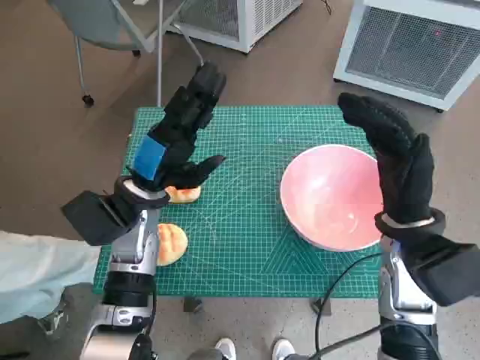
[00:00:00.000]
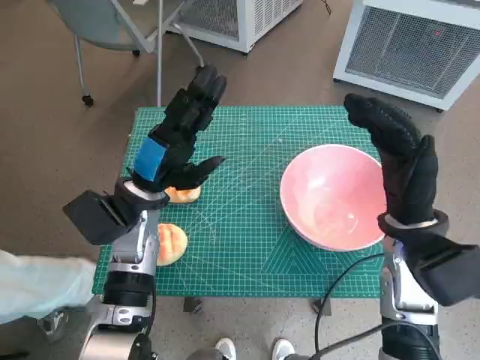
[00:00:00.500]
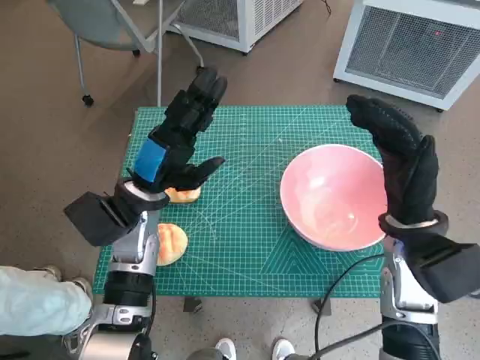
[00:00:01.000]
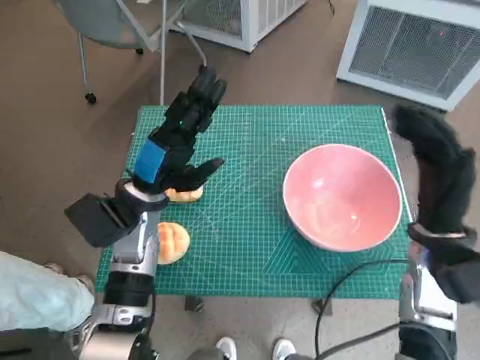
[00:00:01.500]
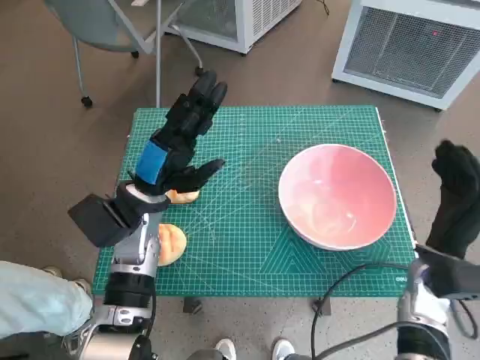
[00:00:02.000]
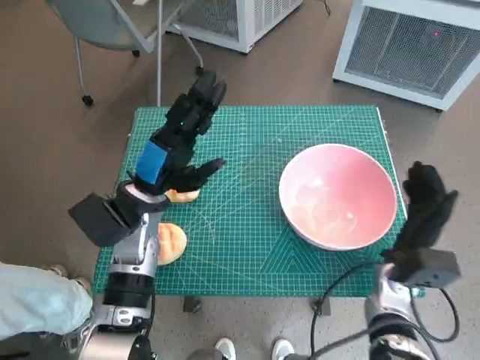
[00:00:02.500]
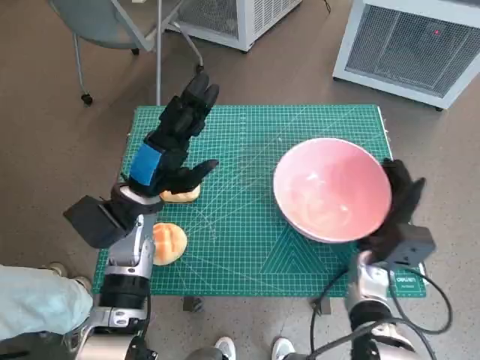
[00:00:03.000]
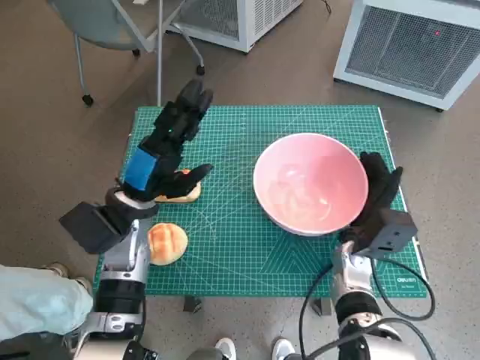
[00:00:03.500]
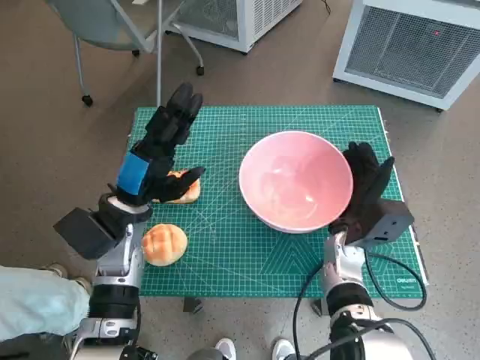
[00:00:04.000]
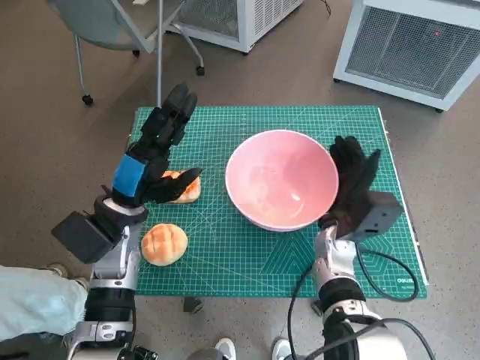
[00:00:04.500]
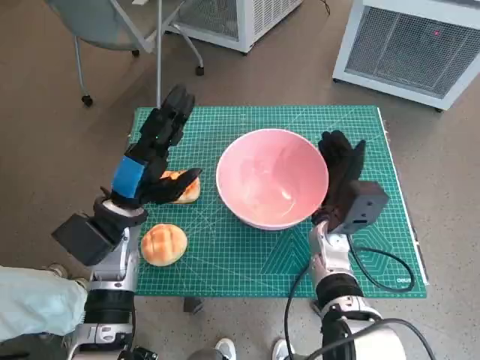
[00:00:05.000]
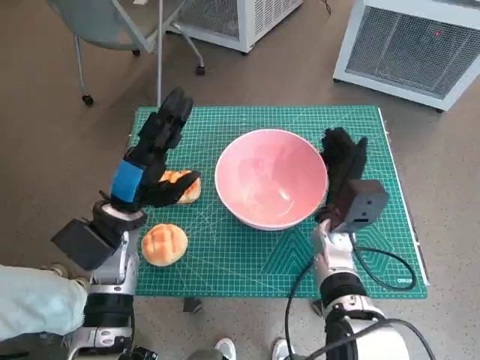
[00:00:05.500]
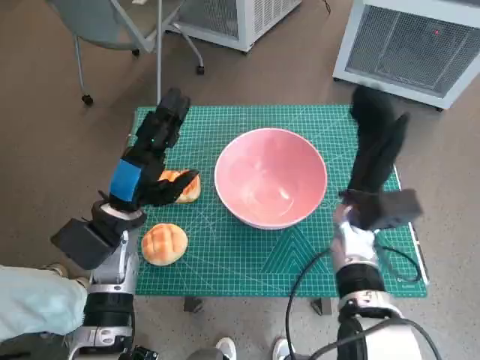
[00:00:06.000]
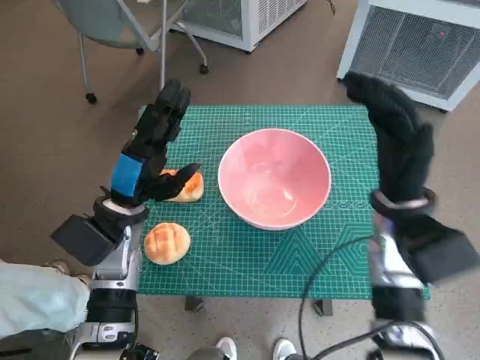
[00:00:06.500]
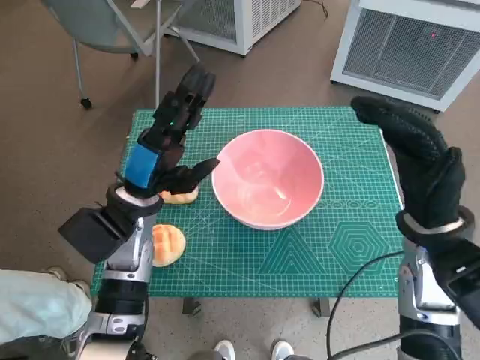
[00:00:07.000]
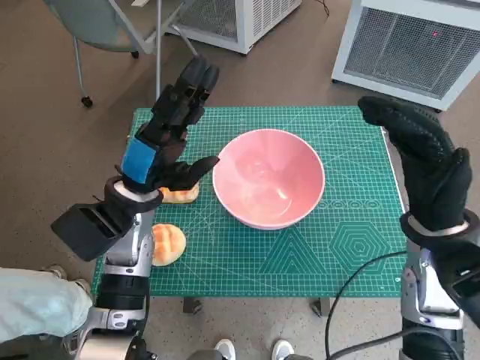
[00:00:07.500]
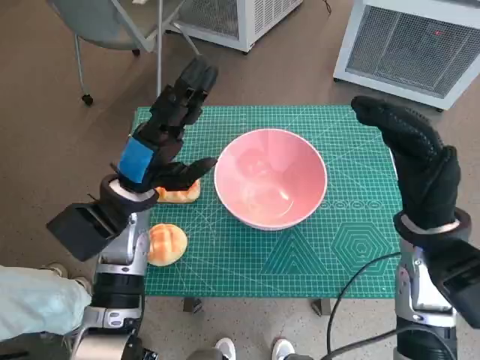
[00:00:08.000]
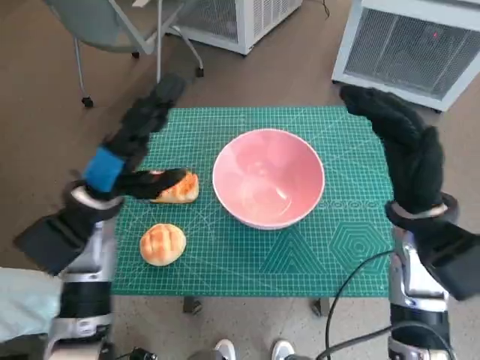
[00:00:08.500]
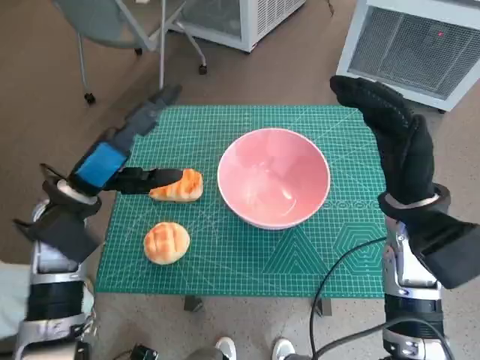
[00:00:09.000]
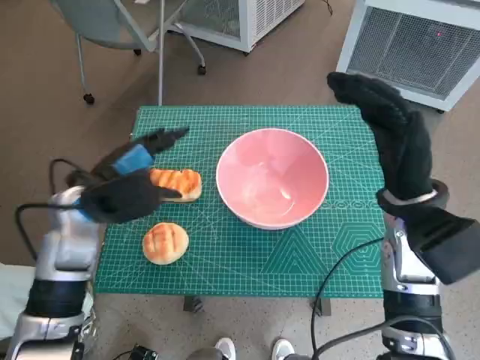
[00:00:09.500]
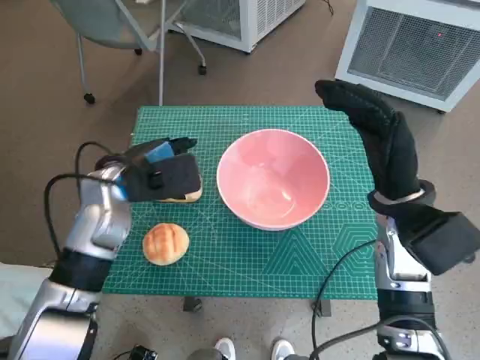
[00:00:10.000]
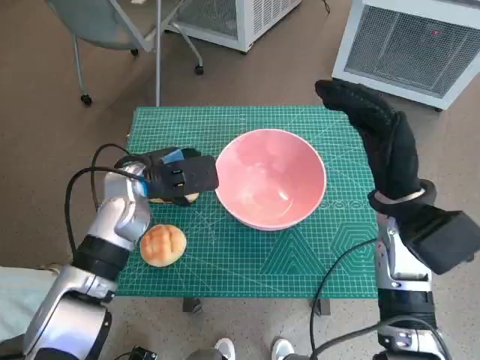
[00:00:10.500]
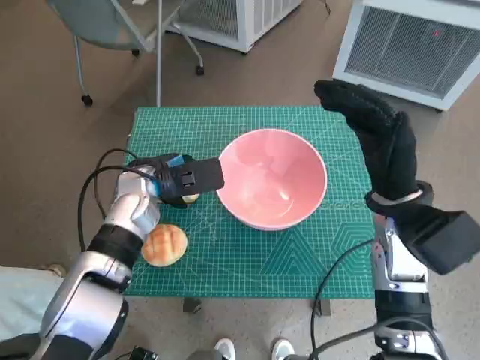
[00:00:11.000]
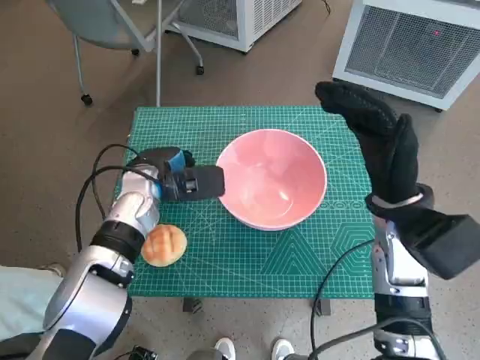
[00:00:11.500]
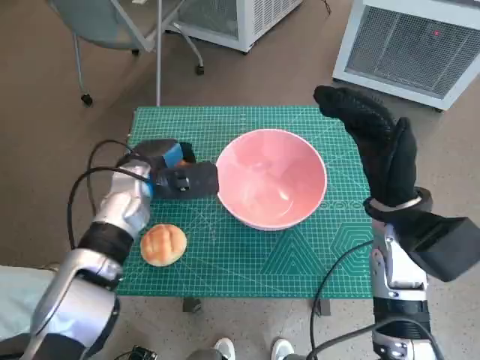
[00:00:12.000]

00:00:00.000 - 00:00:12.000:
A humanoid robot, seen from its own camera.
Task of the whole recording: Push the bowl into the center of the table and put the bread into the bowl.
Step, 00:00:00.000 - 00:00:05.500: Move the pink bowl to the center of table with right hand.
Step, 00:00:06.000 - 00:00:11.500: Grasp the long bread with left hand.
00:00:02.000 - 00:00:04.000: The right hand heads to the left, covering approximately 10 cm.
00:00:04.000 - 00:00:06.000: The right hand travels upward by approximately 5 cm.
00:00:06.000 - 00:00:08.000: The right hand shifts about 10 cm upward, backward and to the right.
00:00:10.000 - 00:00:12.000: The left hand changes place by about 5 cm.

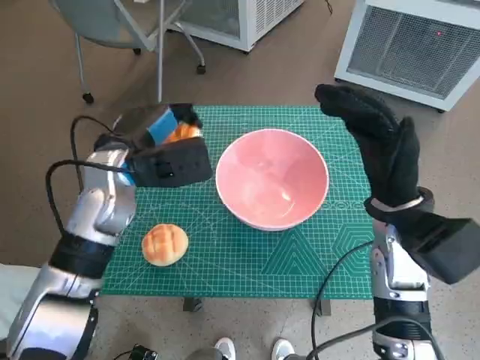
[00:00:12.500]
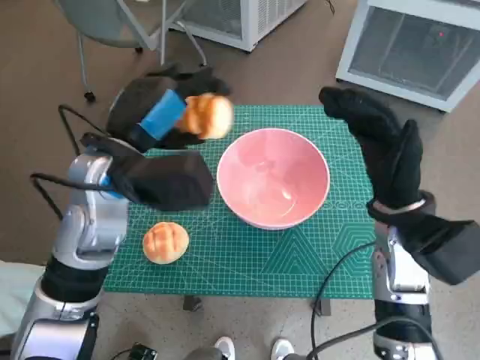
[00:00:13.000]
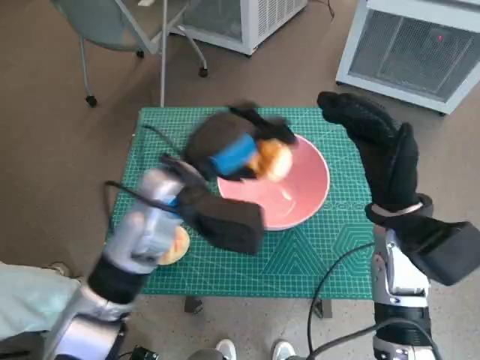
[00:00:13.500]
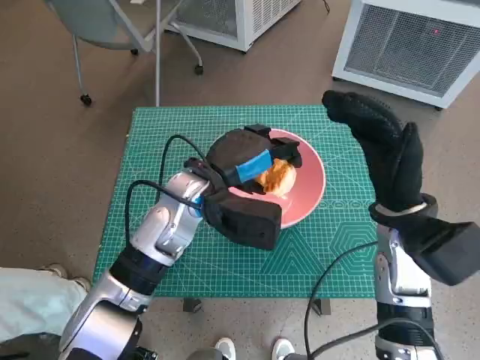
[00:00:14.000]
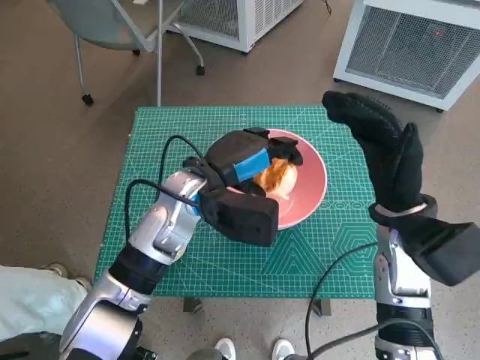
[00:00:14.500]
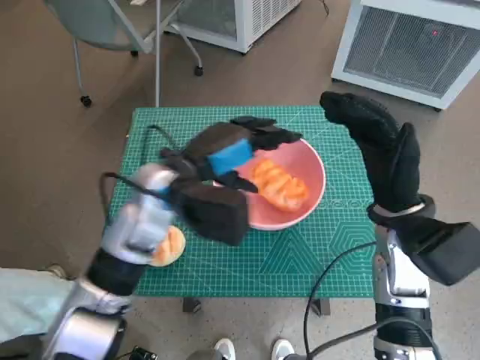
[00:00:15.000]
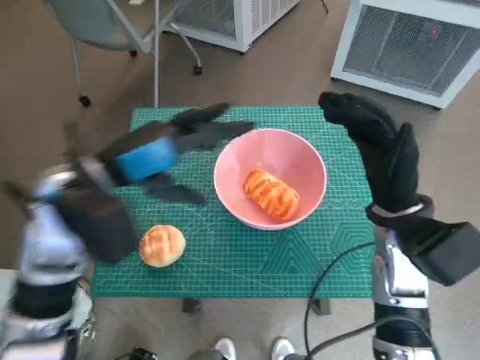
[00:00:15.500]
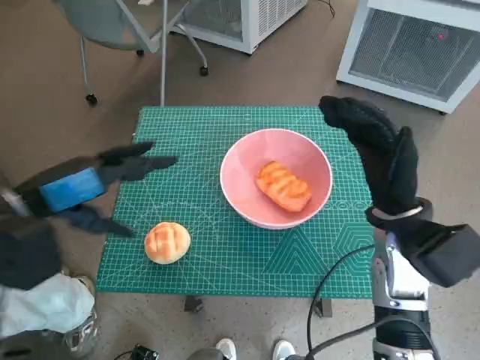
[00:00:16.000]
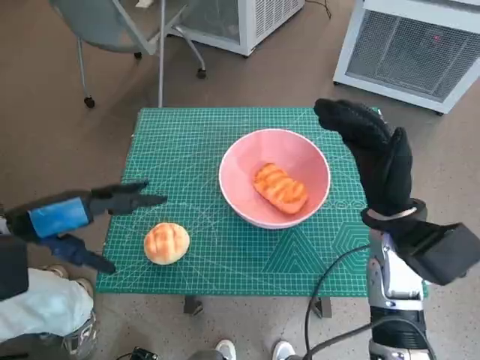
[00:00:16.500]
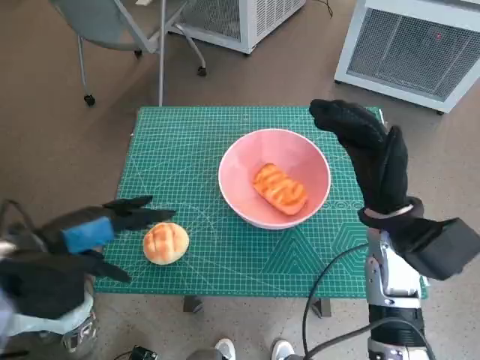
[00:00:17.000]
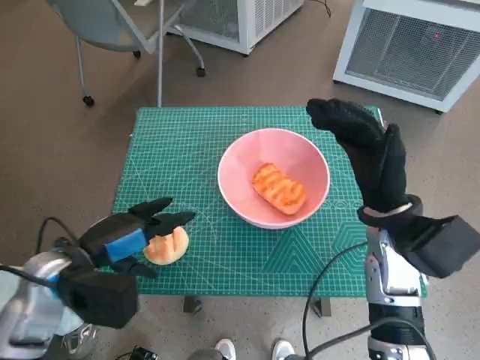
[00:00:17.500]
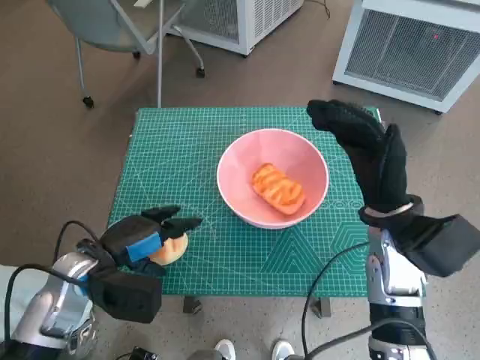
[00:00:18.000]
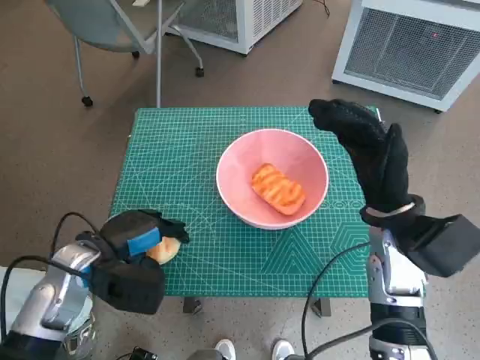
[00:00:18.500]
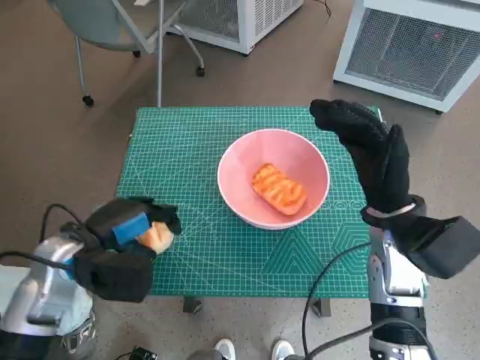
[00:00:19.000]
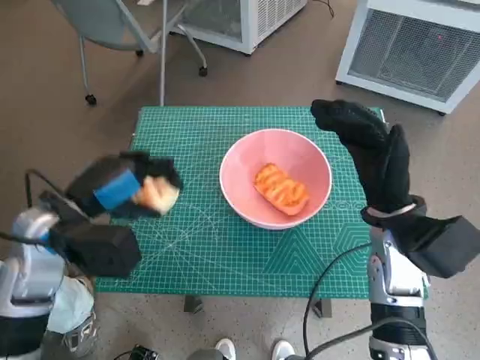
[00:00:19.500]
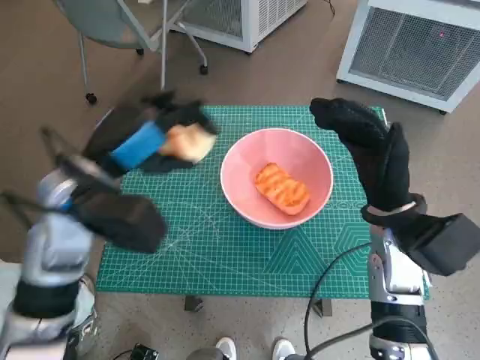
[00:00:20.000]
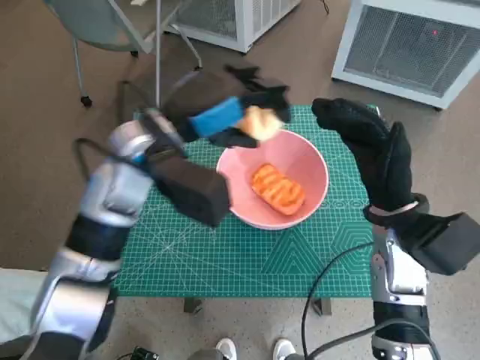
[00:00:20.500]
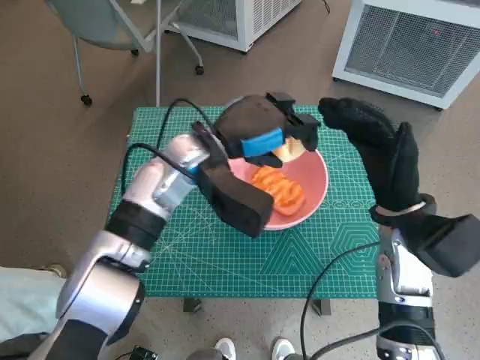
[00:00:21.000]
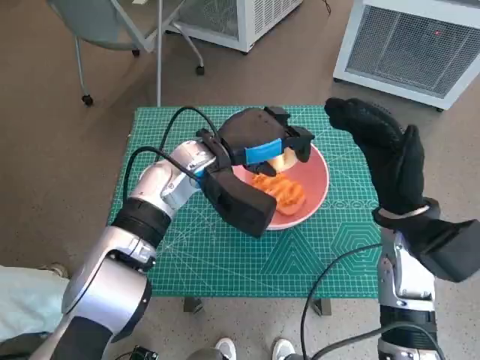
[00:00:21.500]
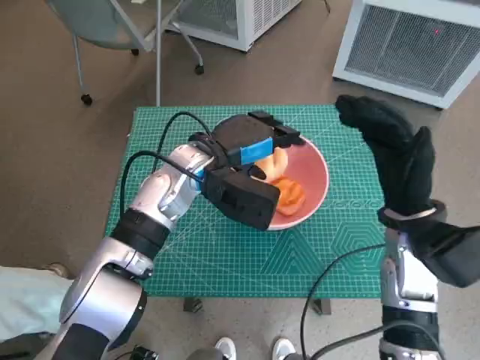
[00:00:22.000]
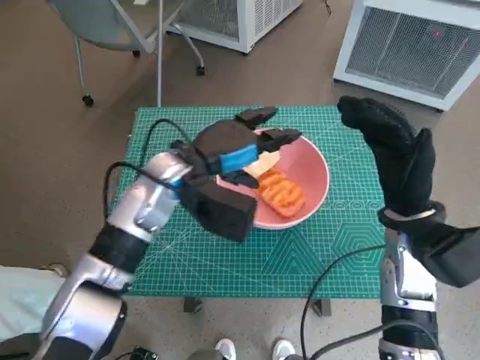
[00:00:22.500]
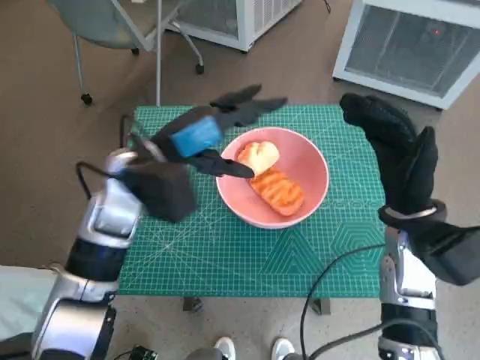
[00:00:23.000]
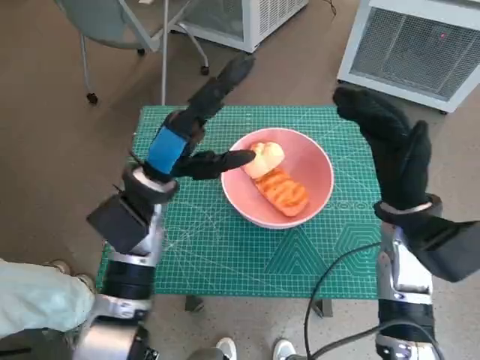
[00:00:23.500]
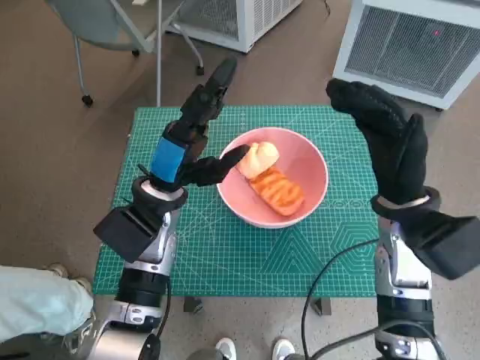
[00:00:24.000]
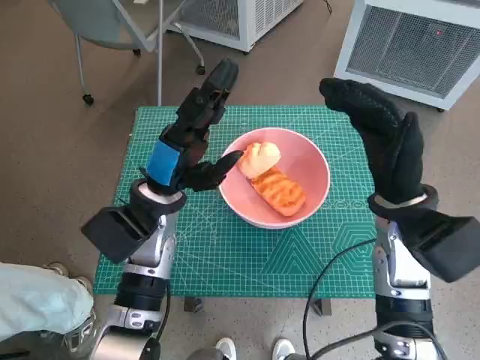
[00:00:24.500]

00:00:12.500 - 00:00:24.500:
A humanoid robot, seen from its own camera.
Task of the whole recording: Push the bowl into the center of the table and put the bread into the bowl.
Step, 00:00:12.500 - 00:00:14.500: Place the long bread in pink bowl with left hand.
Step, 00:00:15.000 - 00:00:18.000: Grasp the round bread with left hand.
Step, 00:00:19.000 - 00:00:22.000: Place the round bread in pink bowl with left hand.
00:00:12.500 - 00:00:14.500: The left hand is displaced to the right by about 10 cm.
00:00:14.500 - 00:00:16.500: The left hand is displaced to the left and backward by roughly 20 cm.
00:00:16.500 - 00:00:18.500: The left hand heads downward and to the right, covering some 15 cm.
00:00:18.500 - 00:00:20.500: The left hand travels upward, to the right and forward by some 20 cm.
00:00:20.500 - 00:00:22.500: The left hand shifts roughly 5 cm downward.
00:00:22.500 - 00:00:24.500: The left hand changes place by approximately 5 cm.
